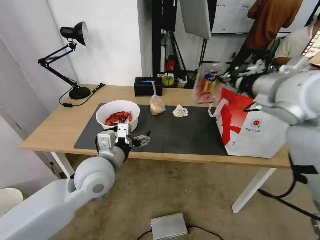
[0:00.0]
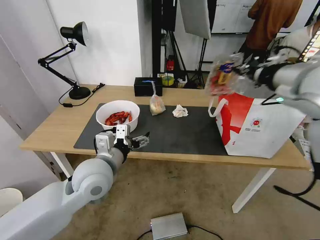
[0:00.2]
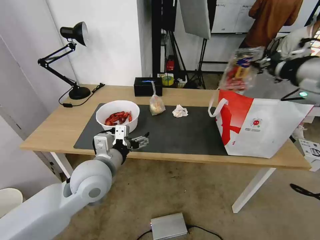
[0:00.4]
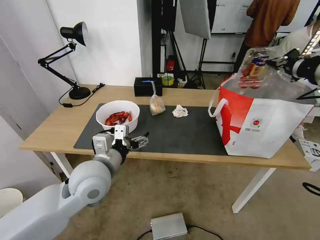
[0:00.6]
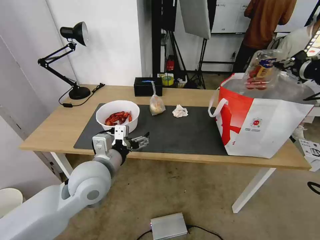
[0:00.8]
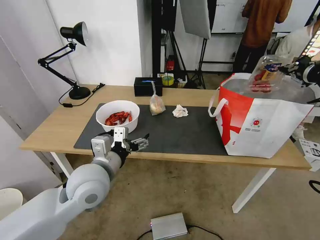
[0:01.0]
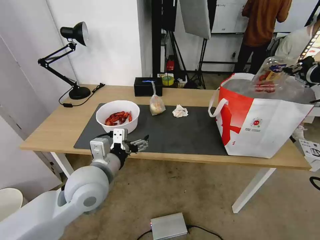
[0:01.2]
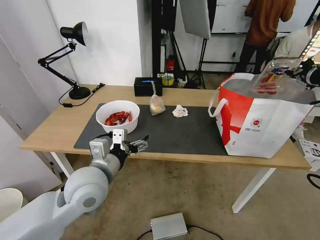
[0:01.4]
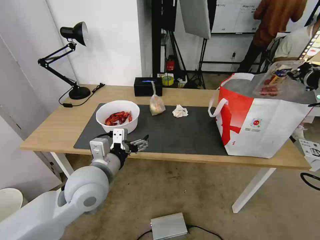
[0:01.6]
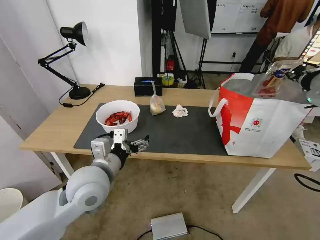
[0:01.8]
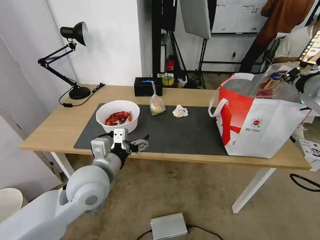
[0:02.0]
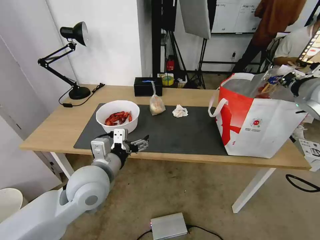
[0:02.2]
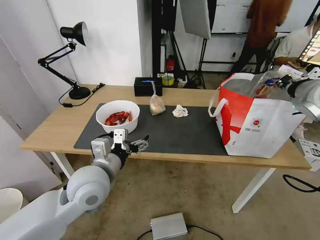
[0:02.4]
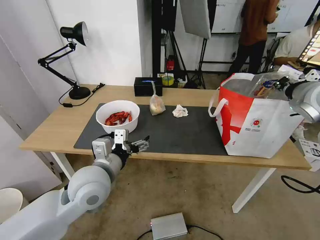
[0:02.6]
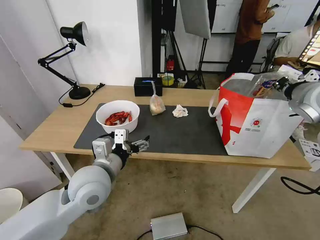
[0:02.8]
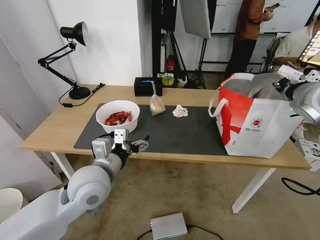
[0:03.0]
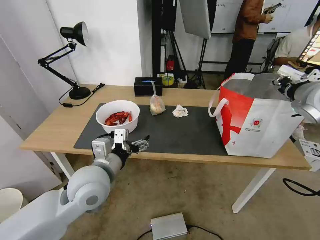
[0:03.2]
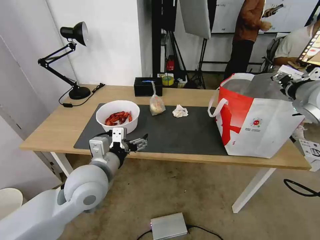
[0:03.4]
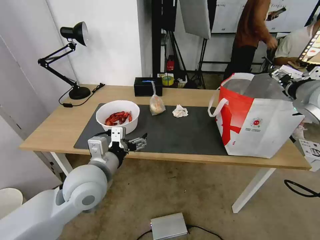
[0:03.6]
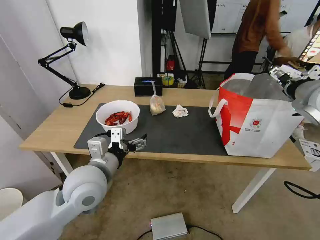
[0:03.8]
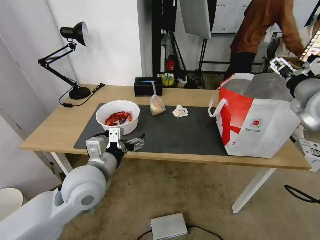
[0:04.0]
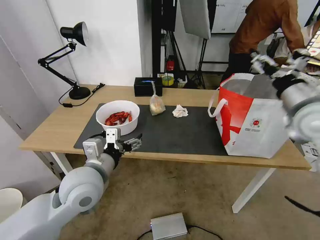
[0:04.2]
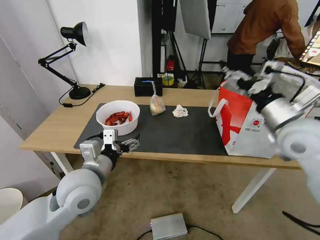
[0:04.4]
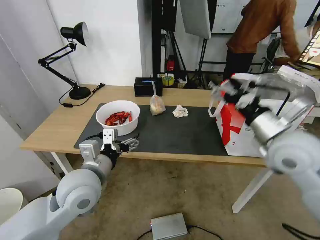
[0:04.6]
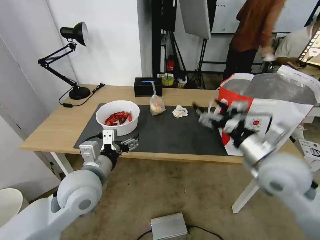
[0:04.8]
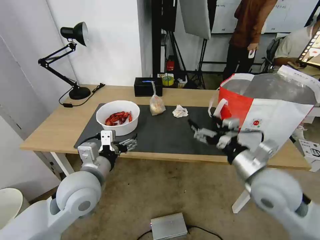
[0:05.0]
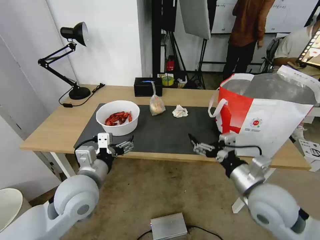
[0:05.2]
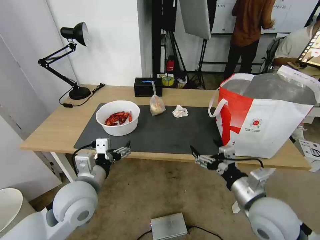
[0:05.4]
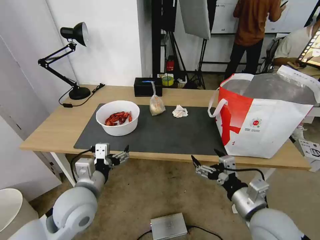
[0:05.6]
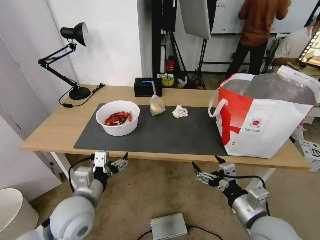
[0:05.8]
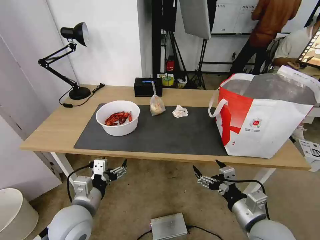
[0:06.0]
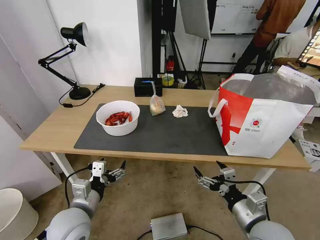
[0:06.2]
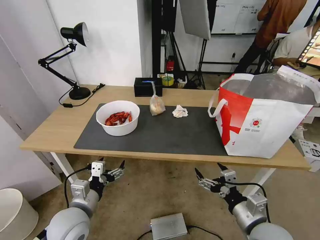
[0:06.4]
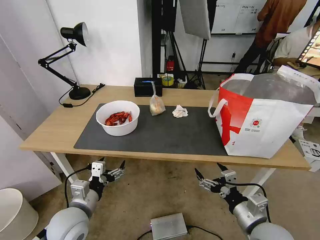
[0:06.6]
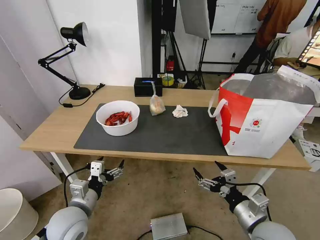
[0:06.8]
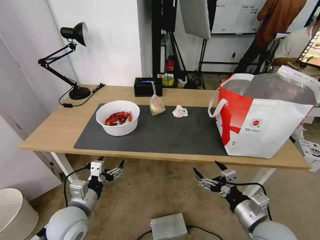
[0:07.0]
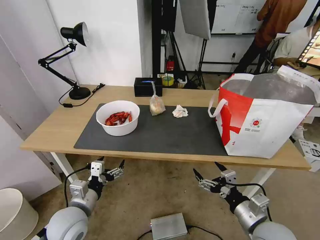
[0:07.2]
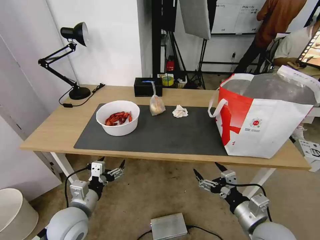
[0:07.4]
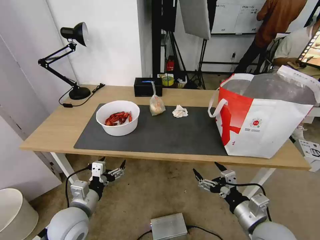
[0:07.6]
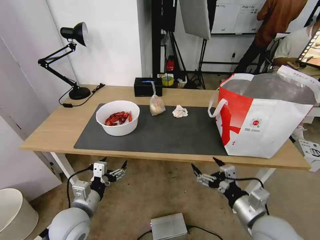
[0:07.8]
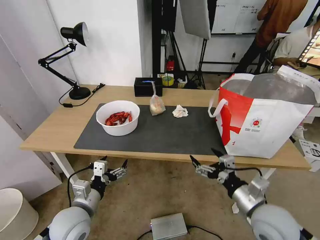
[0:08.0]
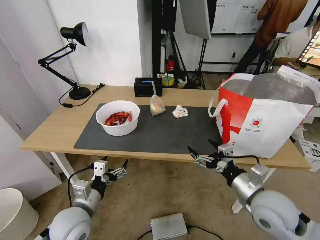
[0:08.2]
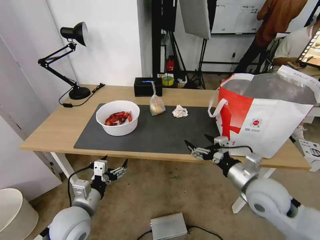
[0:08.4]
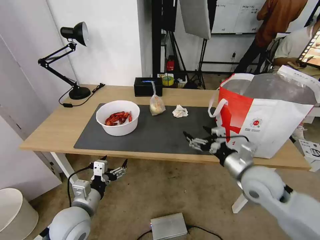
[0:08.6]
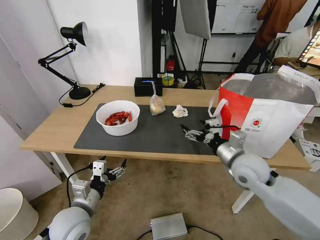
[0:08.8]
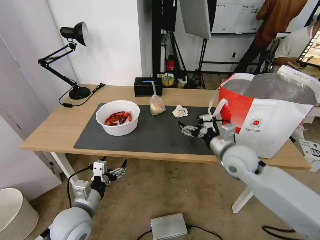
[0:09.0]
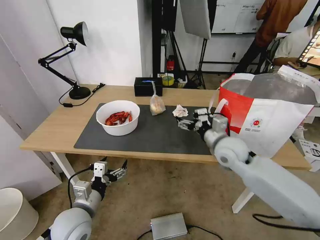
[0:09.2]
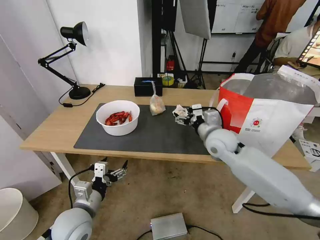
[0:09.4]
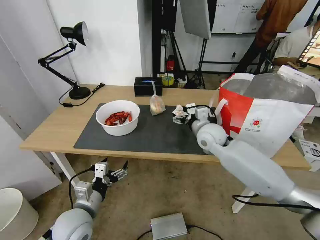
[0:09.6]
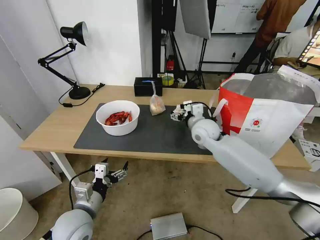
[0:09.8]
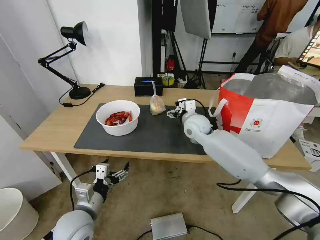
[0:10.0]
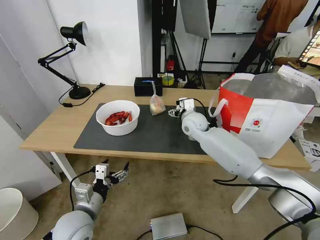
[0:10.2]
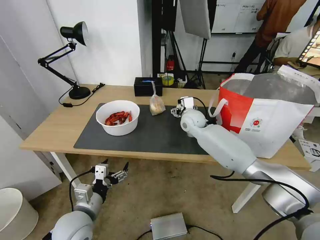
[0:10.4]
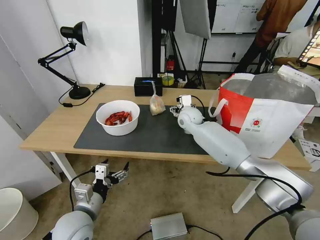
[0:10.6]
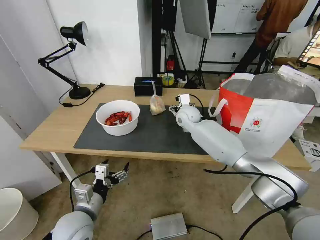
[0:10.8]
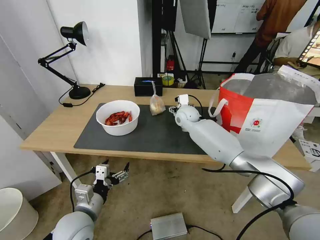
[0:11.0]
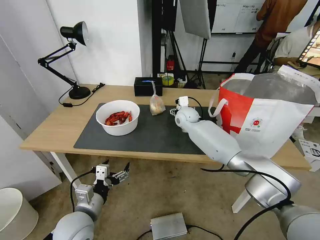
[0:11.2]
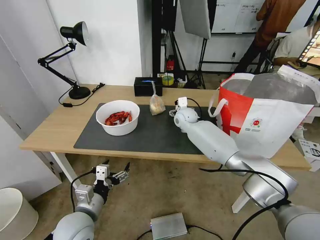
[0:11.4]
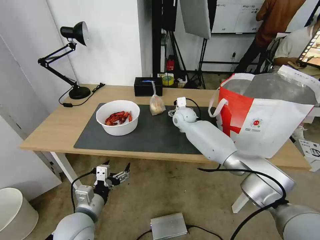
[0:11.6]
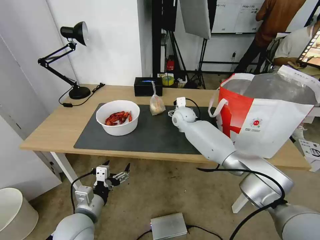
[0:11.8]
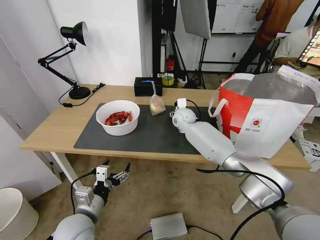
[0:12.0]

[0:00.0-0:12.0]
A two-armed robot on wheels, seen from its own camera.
Task of the whole recording: Pick up the trash from the table and place it into the takeout bag.
0:00.0 to 0:01.6: The right gripper shifts roughly 15 cm to the right.
0:01.6 to 0:03.0: The right gripper goes about 5 cm downward.
0:03.0 to 0:04.4: The right gripper shifts roughly 10 cm to the left, backward and downward, and opens up.
0:04.4 to 0:06.0: The right gripper heads downward and backward, covering roughly 25 cm. Meanwhile the left gripper heads downward and backward, covering about 10 cm.
0:06.0 to 0:07.6: The grippers stay close to where they were, moving slightly.
0:07.6 to 0:09.0: The right gripper heads forward, covering roughly 20 cm.
0:09.0 to 0:10.4: The right gripper is displaced forward and to the left by approximately 20 cm.
0:10.4 to 0:12.0: The right gripper changes place by approximately 5 cm.

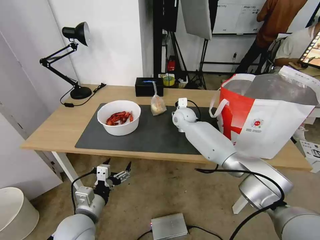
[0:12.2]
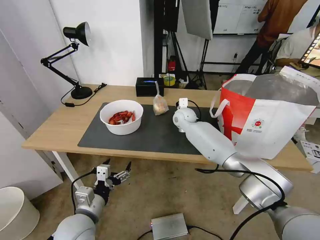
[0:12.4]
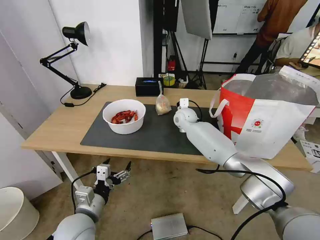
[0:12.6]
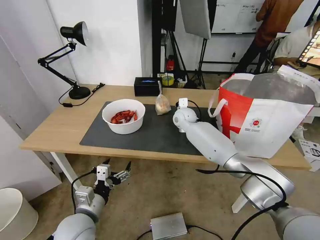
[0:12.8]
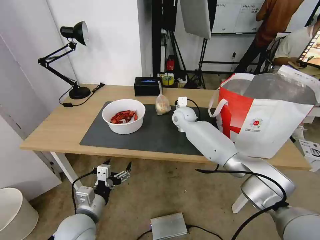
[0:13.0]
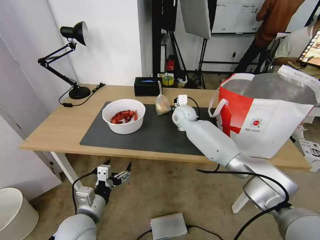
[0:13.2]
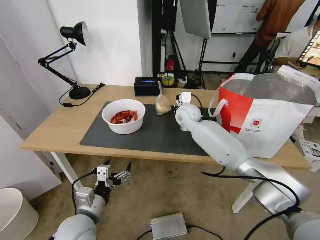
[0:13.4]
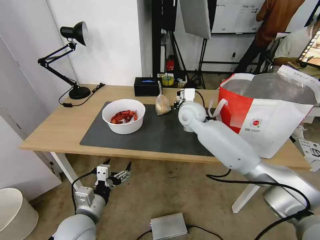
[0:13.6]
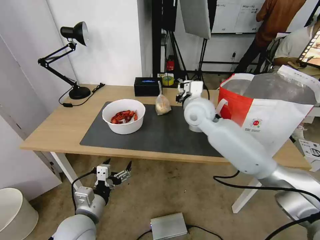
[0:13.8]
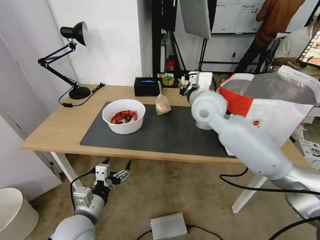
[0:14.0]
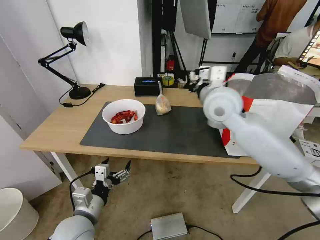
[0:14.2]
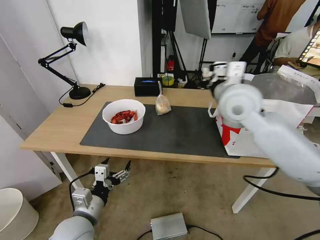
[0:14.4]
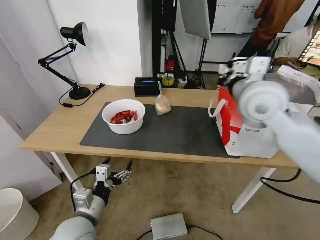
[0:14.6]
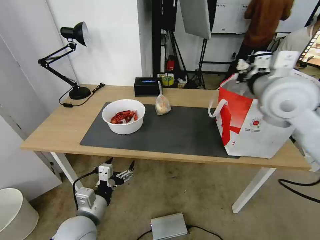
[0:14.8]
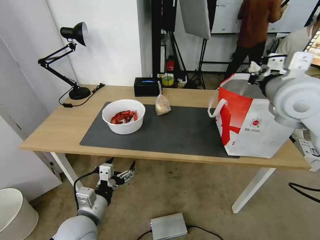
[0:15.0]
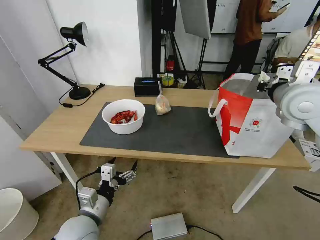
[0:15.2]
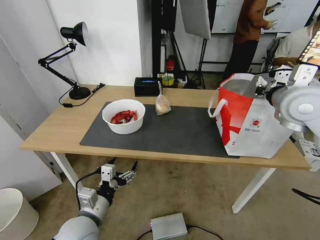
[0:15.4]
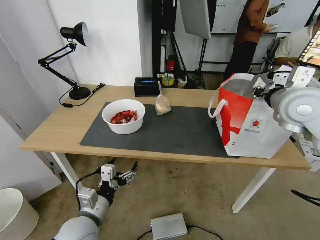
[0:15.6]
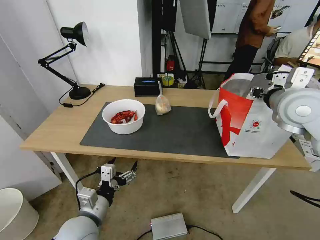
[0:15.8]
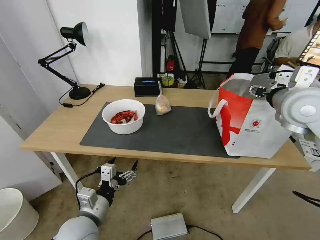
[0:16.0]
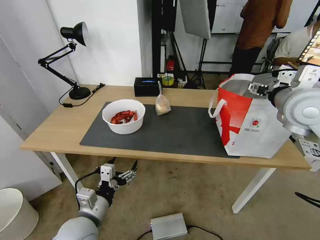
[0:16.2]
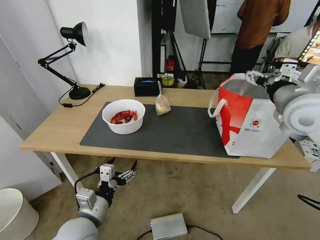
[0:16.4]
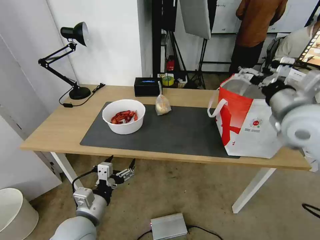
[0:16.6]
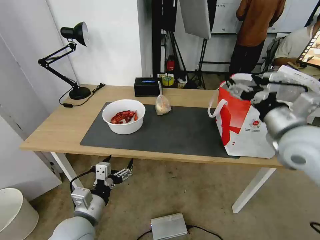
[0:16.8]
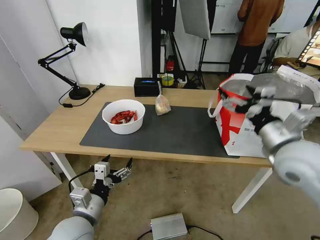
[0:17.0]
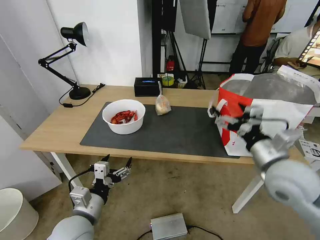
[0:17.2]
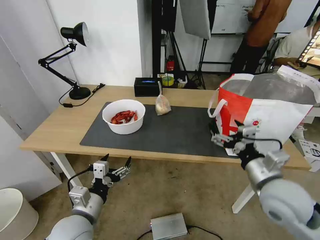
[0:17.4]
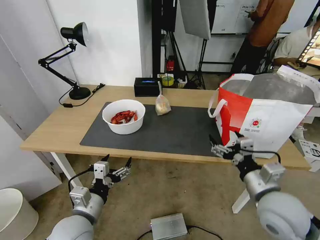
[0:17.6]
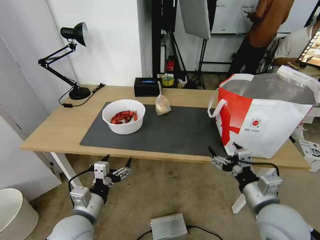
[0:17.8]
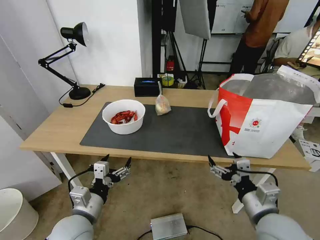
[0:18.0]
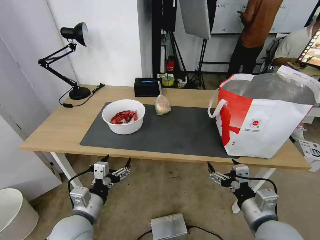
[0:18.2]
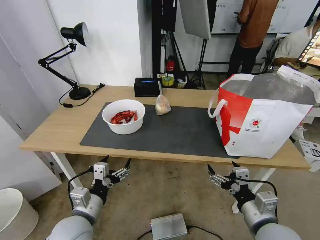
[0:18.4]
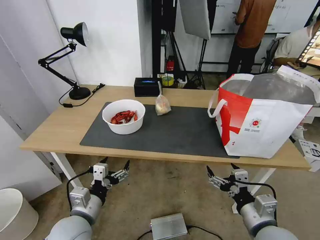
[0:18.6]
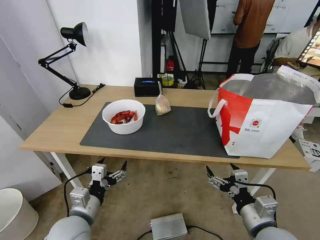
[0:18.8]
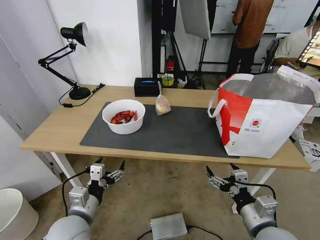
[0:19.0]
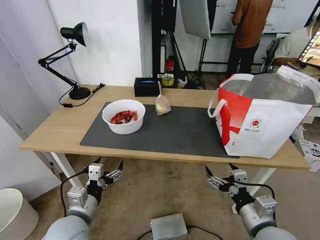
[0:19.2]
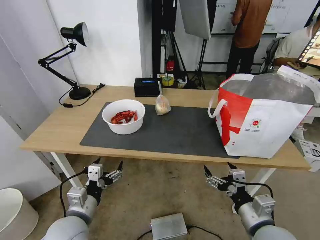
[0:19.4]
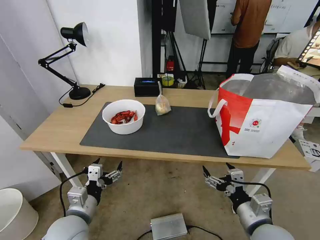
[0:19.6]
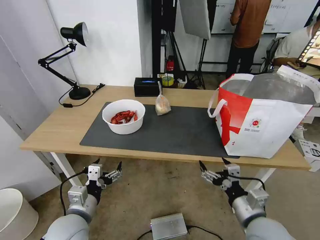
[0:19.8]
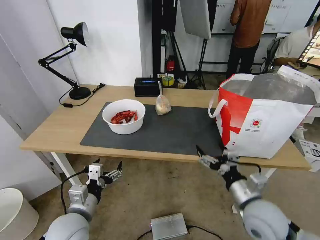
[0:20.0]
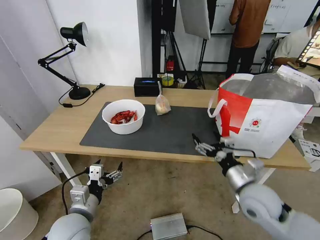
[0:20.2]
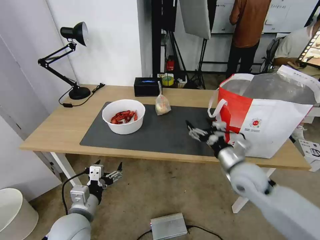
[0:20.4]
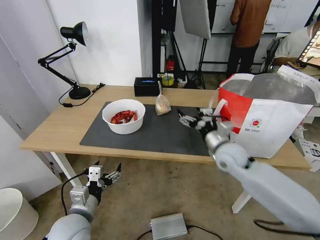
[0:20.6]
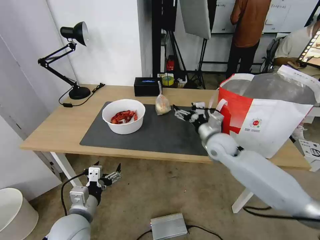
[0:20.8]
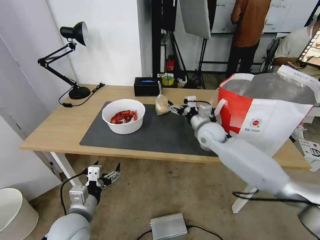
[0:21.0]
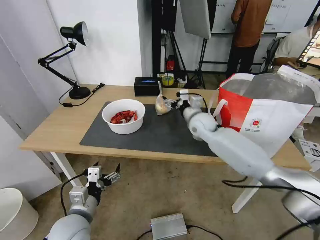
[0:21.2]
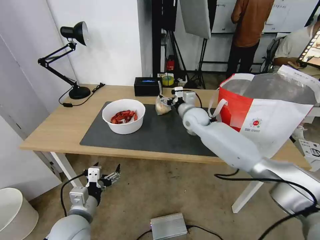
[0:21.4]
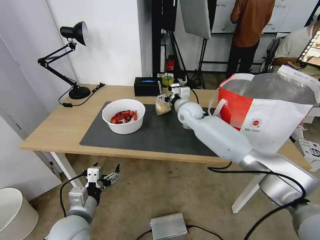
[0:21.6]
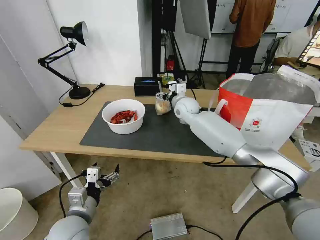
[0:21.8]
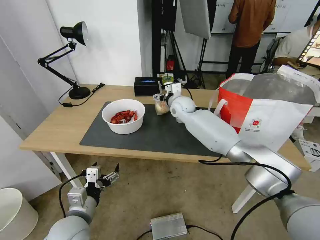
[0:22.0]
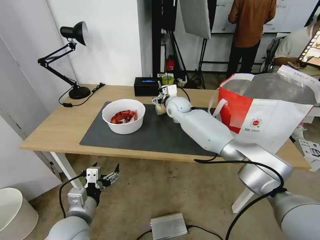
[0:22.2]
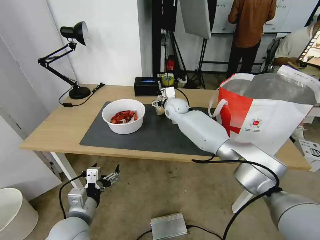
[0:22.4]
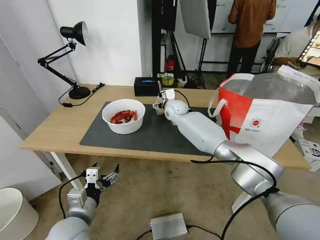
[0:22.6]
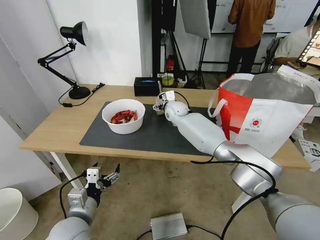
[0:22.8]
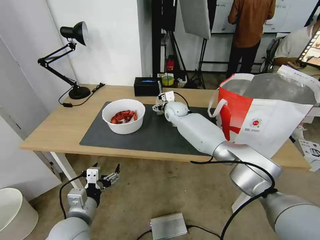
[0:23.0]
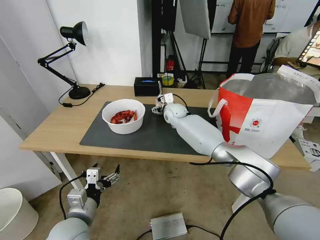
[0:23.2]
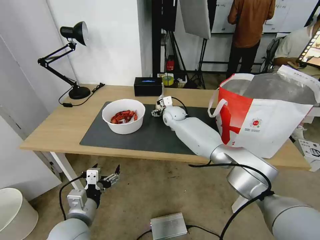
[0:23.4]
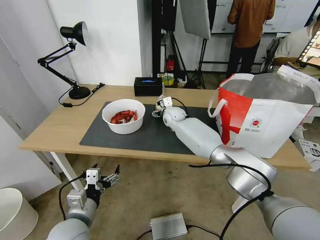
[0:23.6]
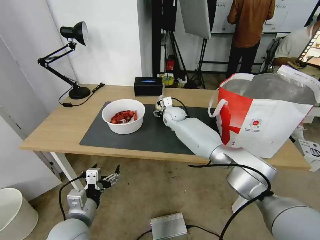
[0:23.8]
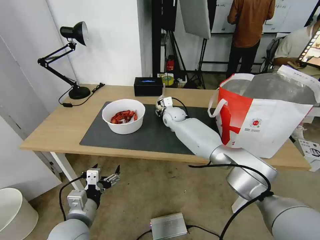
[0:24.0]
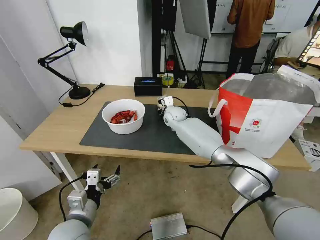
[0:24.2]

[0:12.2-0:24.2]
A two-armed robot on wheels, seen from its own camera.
Task of the whole recording: Pick up the trash from the table and place it into the takeout bag.
0:12.2 to 0:13.8: The right gripper moves upward and backward, about 15 cm, and closes up.
0:13.8 to 0:15.2: The right gripper moves to the right, upward and backward, approximately 25 cm.
0:15.2 to 0:16.6: The right gripper changes place by approximately 5 cm, and opens.
0:16.6 to 0:18.2: The right gripper is displaced downward and backward by about 25 cm.
0:18.2 to 0:19.8: There are only small adjustments of the grippers.
0:19.8 to 0:21.2: The right gripper shifts approximately 35 cm forward.
0:21.2 to 0:22.6: The right gripper shifts roughly 15 cm forward and to the left.
0:22.6 to 0:24.2: The right gripper closes its fingers.
